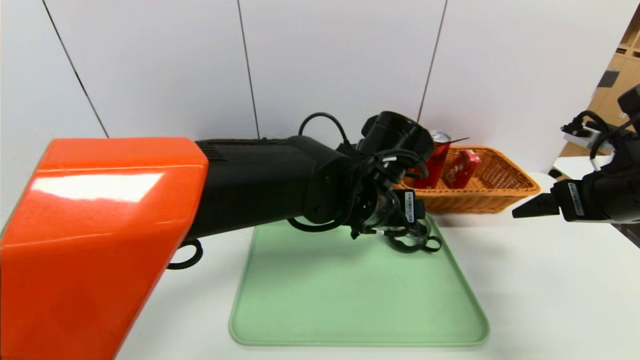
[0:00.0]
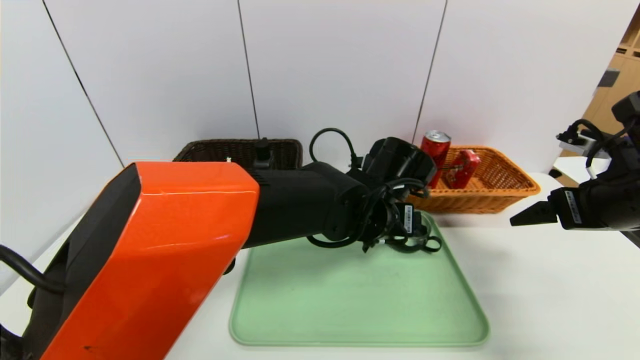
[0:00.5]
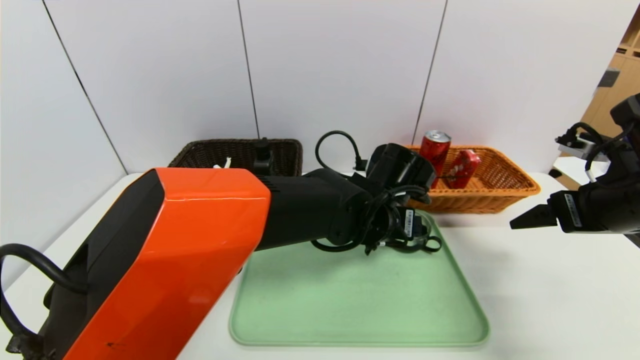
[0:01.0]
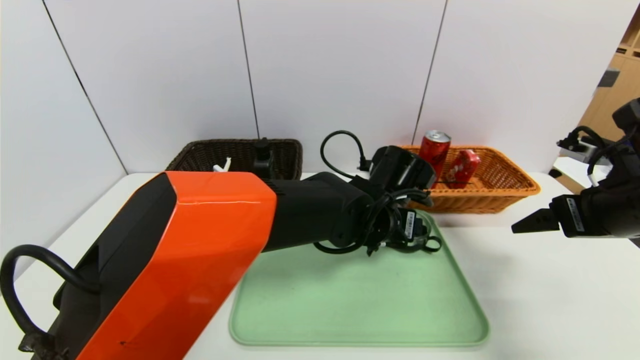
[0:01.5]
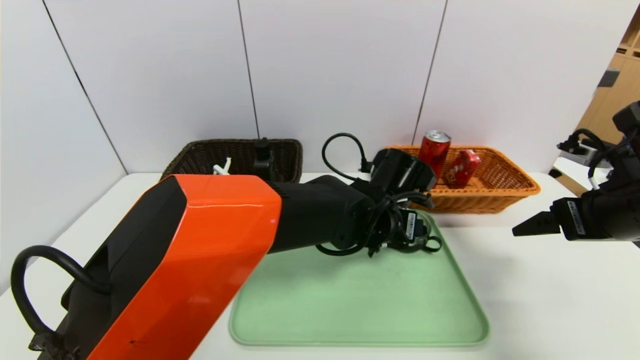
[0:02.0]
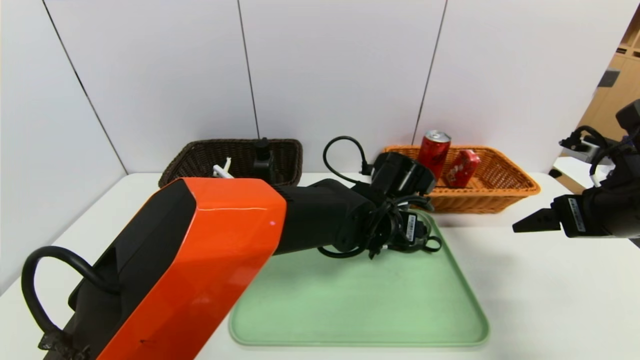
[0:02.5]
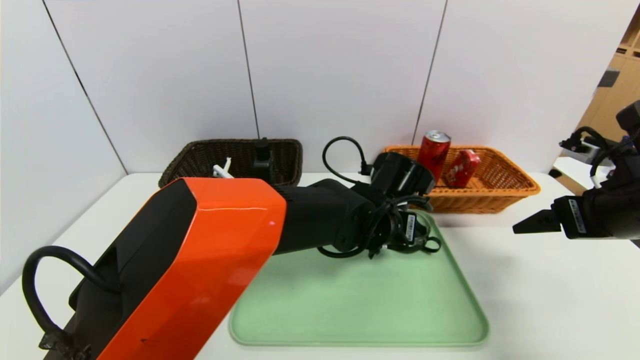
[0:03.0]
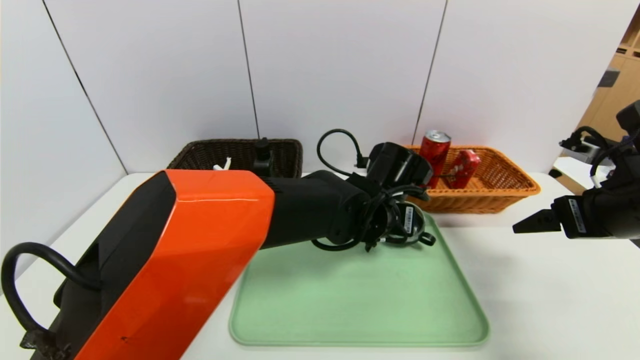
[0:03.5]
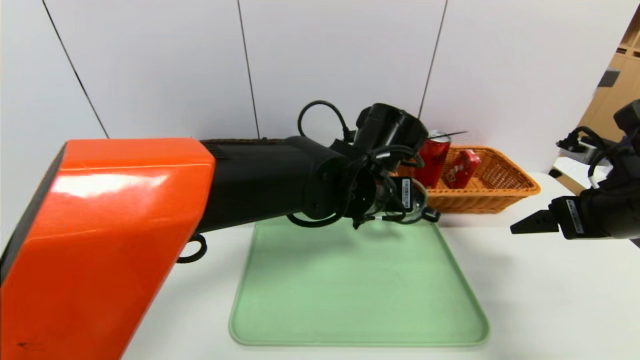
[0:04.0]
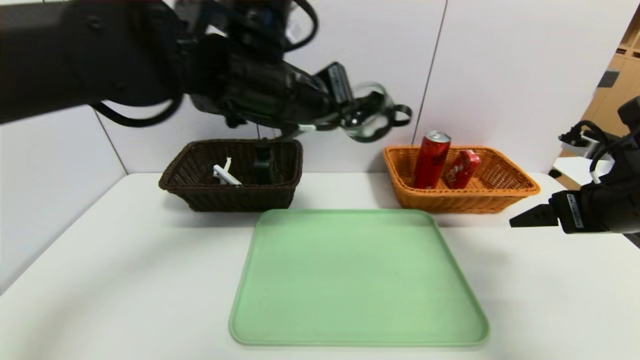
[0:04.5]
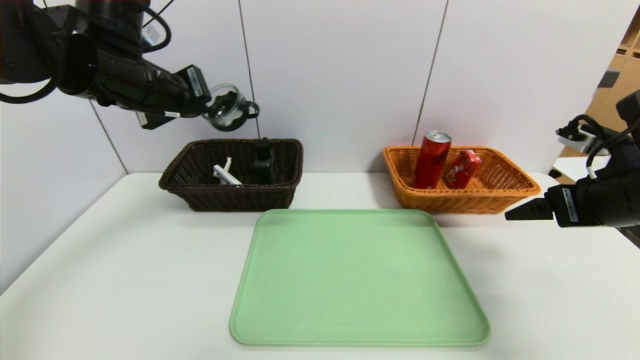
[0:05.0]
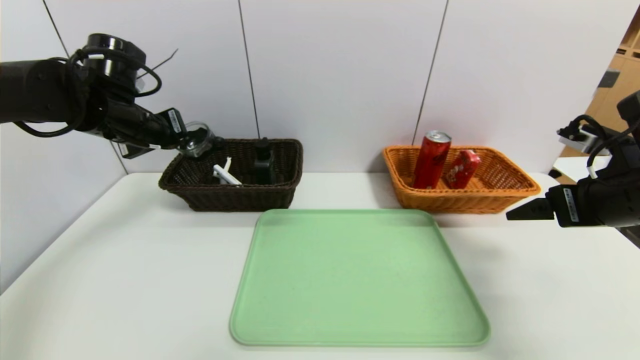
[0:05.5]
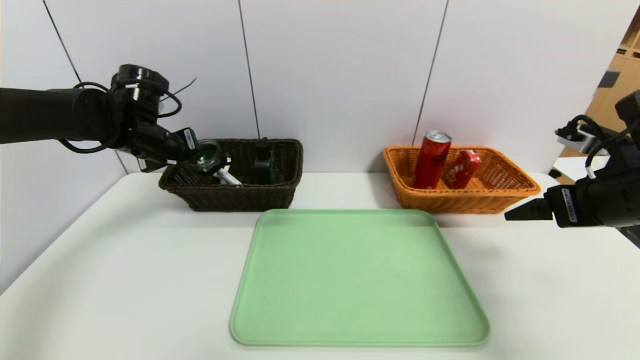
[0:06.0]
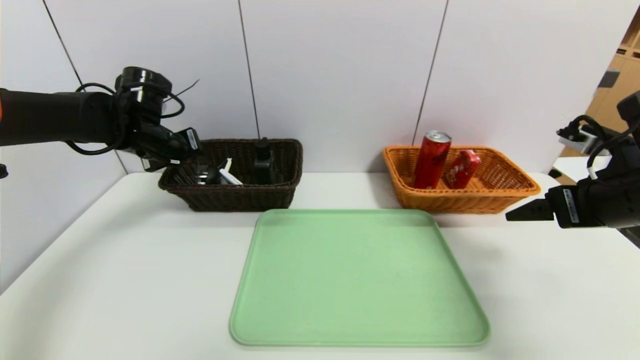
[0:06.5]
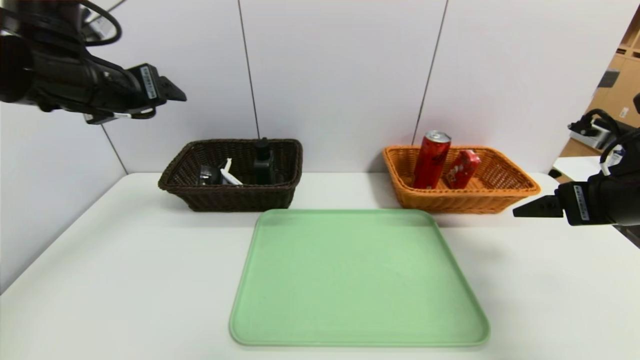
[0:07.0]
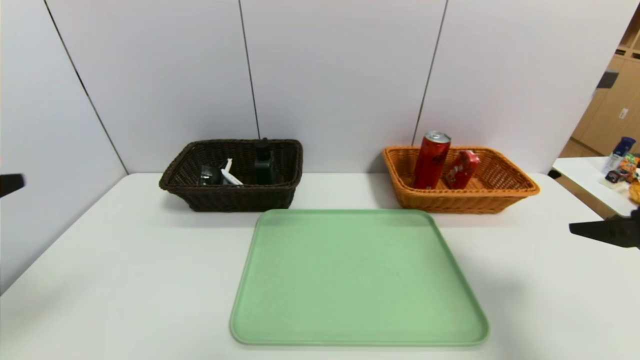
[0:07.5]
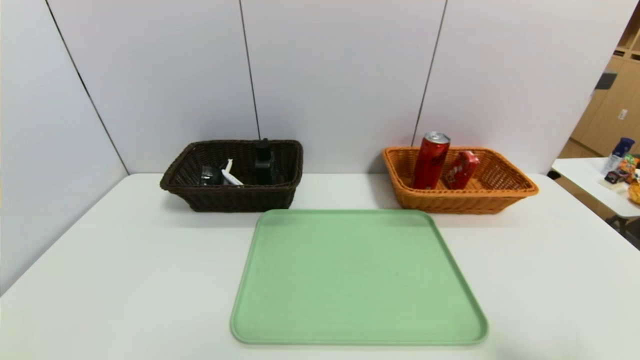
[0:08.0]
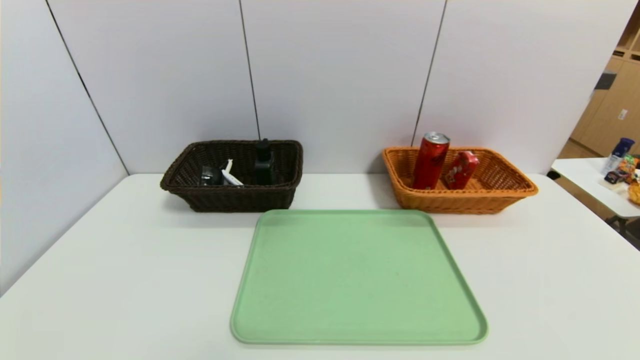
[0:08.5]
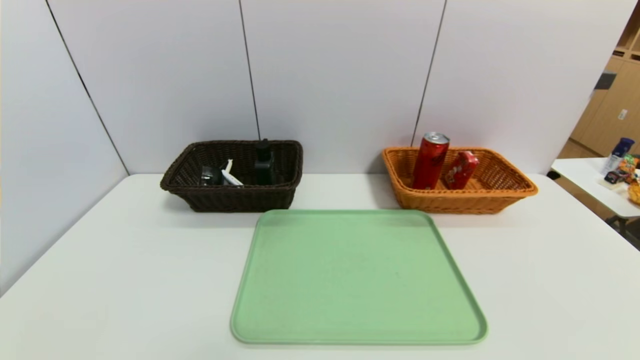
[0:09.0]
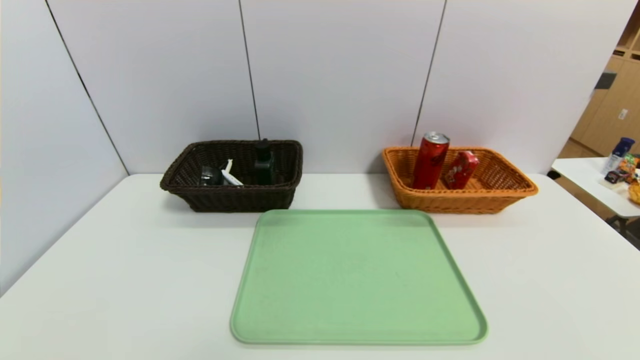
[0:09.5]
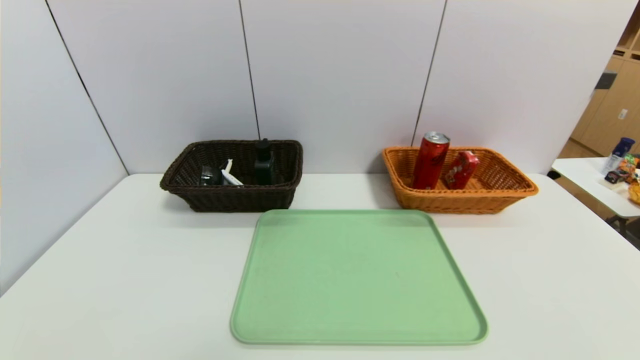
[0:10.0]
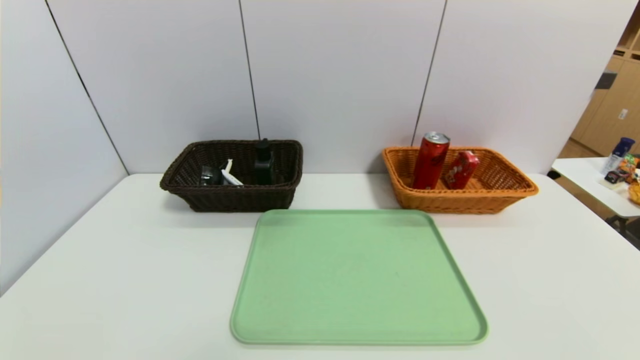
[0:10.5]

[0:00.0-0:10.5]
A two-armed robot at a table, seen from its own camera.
Task of the whole recording: place the food in the right basket with the right gripper, and place the non food items in the left basket with the left gripper.
Step, 0:00.0 to 0:06.0: Grasp the black glass cup and put it in the left basket.
0:00.0 to 0:02.0: The left gripper travels downward by approximately 5 cm.
0:02.0 to 0:04.0: The left gripper heads upward, covering approximately 5 cm, and closes.
0:04.0 to 0:06.5: The left gripper travels to the left by approximately 35 cm, and opens up.
0:06.5 to 0:08.5: The left gripper travels backward by approximately 50 cm, and opens its fingers; the right gripper moves backward, some 30 cm.

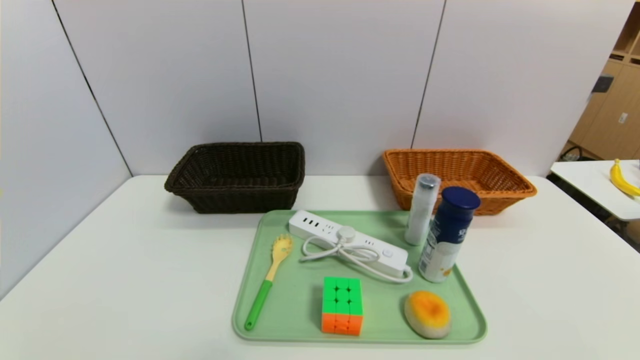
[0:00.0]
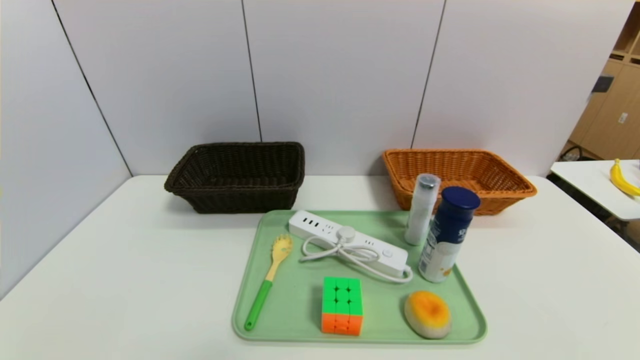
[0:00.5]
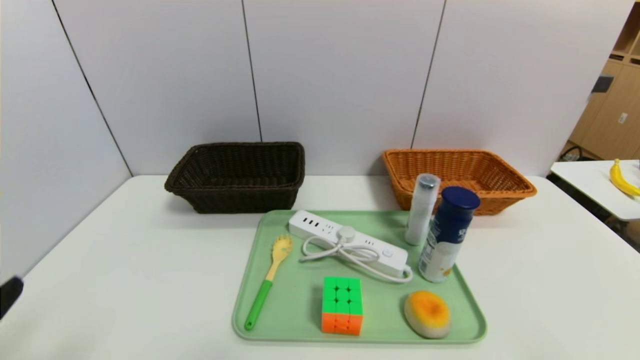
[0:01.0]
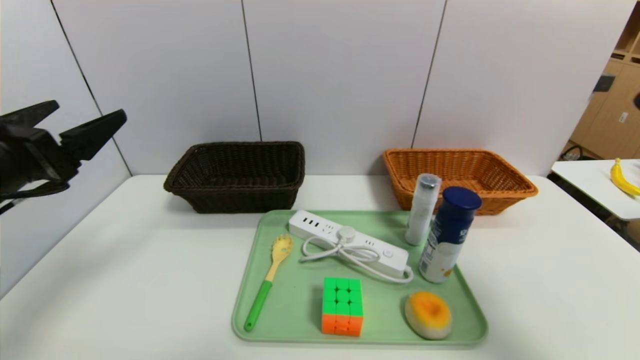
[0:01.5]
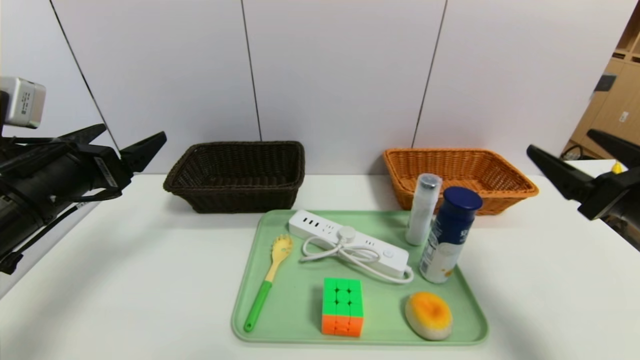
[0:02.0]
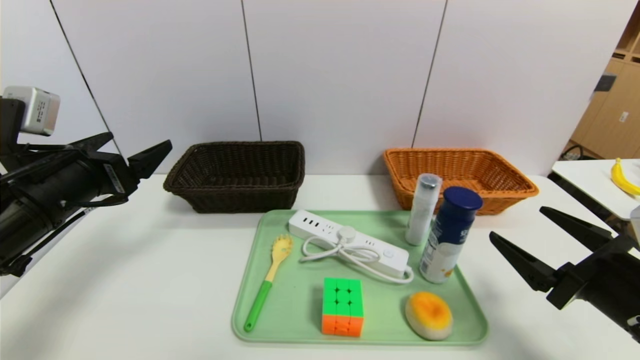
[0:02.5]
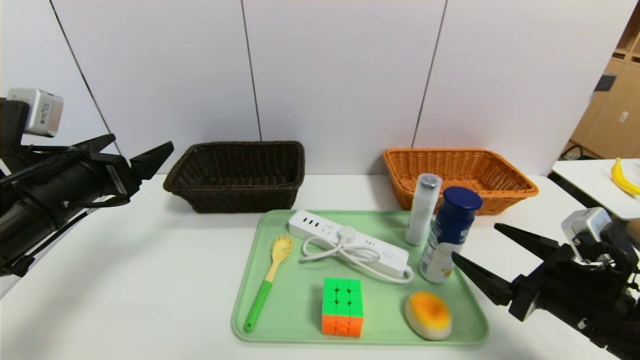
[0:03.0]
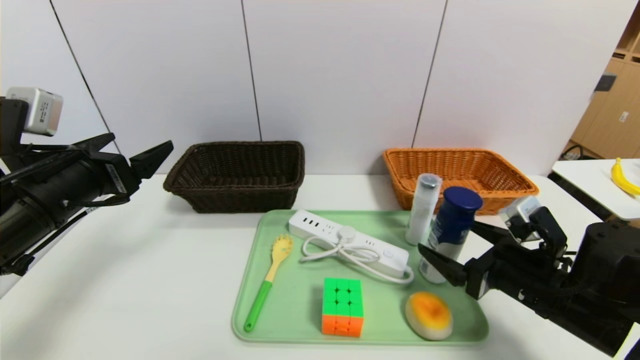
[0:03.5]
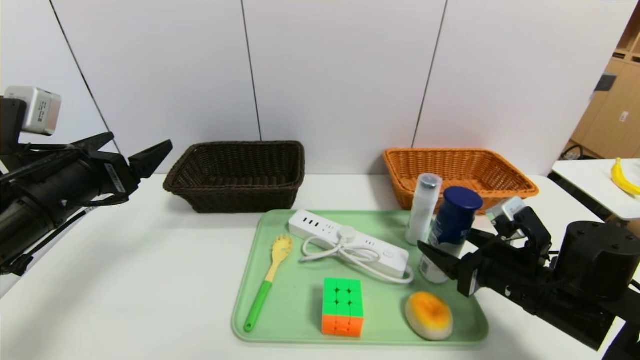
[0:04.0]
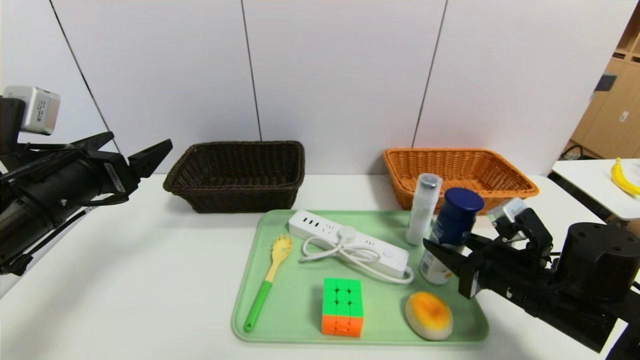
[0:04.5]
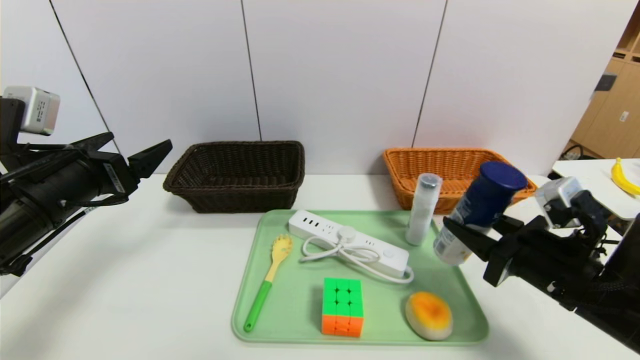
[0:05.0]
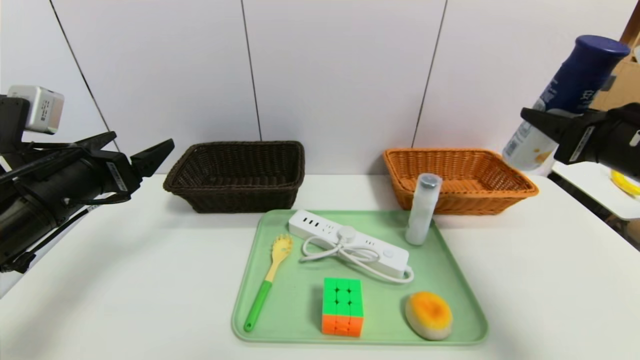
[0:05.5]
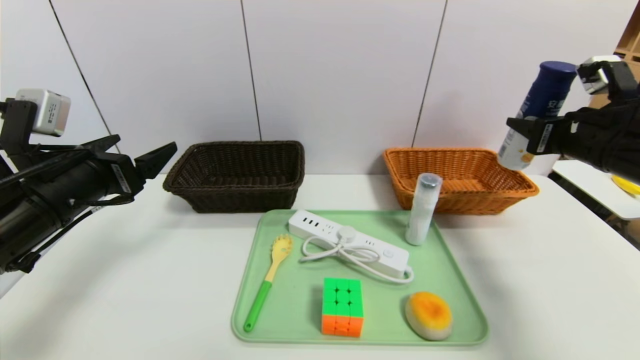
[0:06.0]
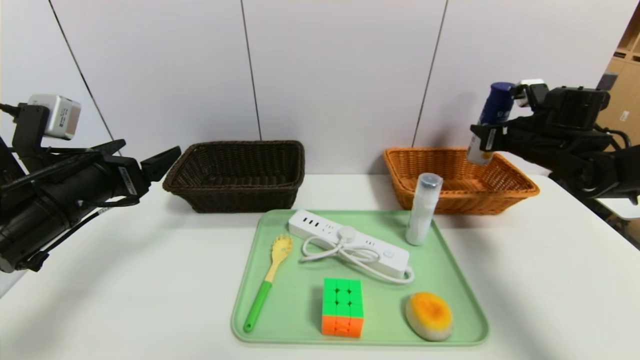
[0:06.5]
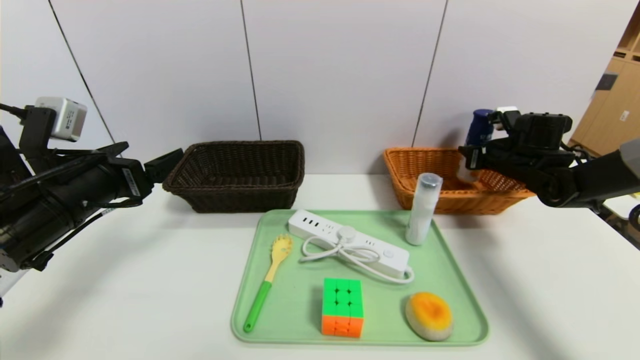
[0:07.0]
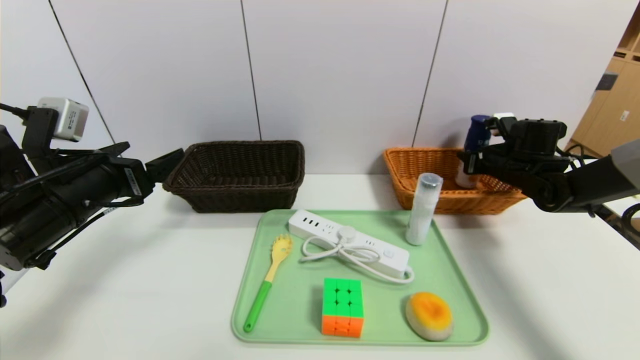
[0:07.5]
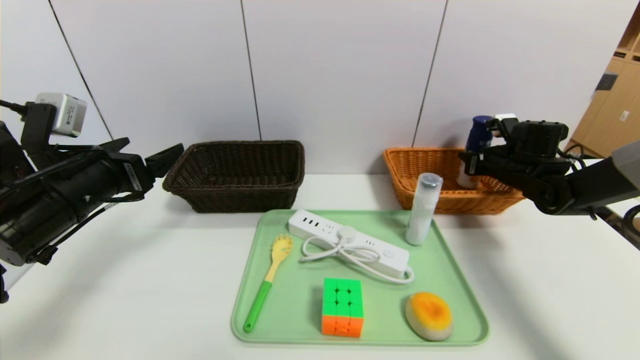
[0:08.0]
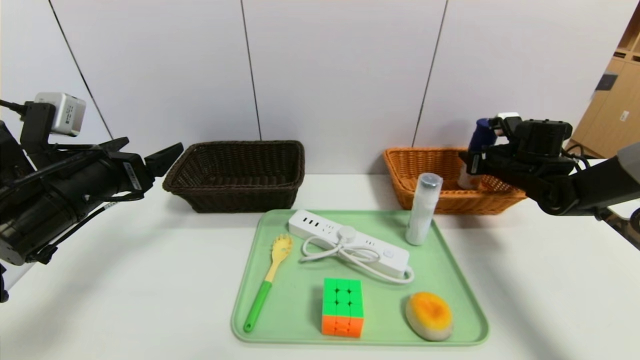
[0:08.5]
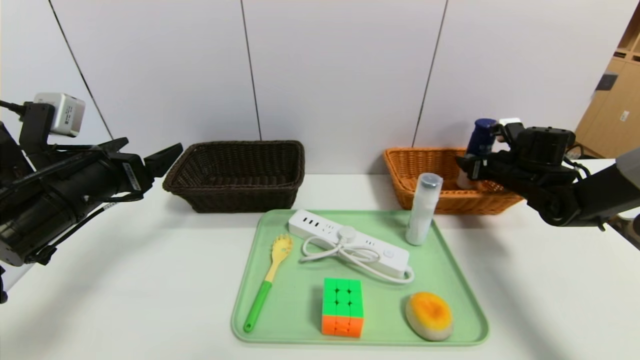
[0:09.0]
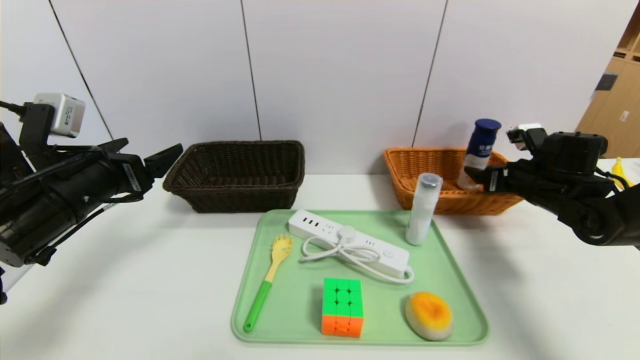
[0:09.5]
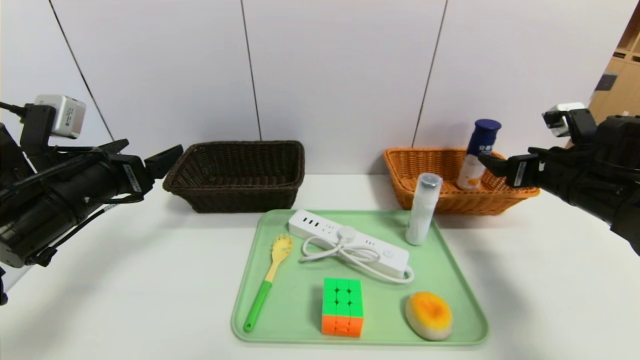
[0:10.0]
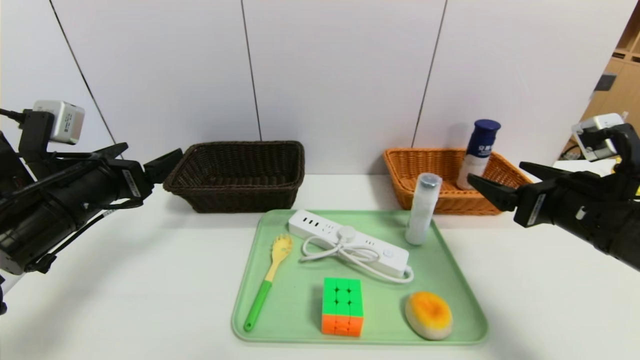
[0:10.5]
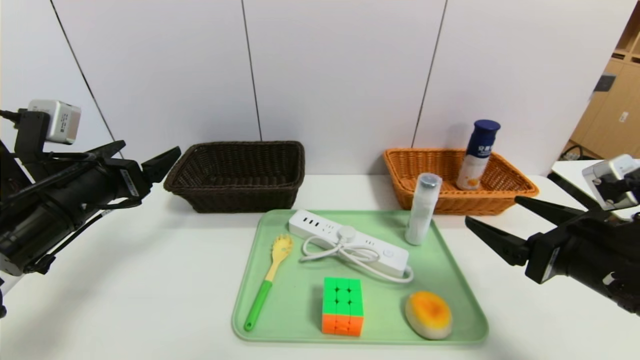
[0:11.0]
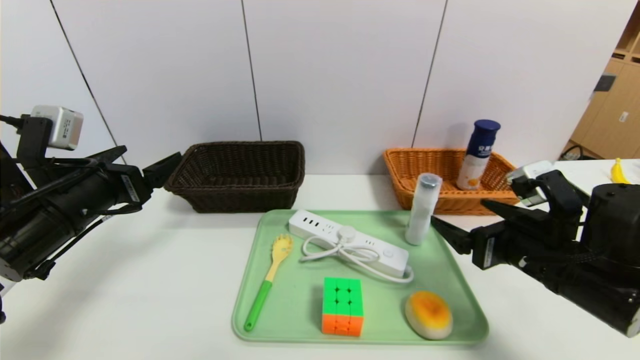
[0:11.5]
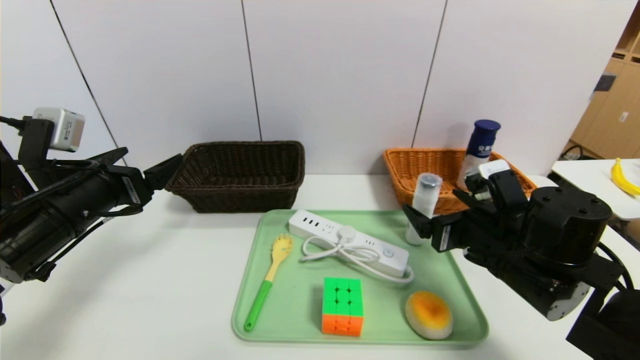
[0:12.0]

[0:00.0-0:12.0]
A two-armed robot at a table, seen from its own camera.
Task of the whole recording: place the food in the right basket with the right gripper, and place the non food items in the left basket with the left gripper.
Step, 0:00.0 to 0:09.5: Grasp the yogurt and put it in the right basket.
0:00.0 to 0:02.0: The grippers both shift forward and upward by roughly 25 cm.
0:02.0 to 0:04.0: The right gripper is displaced downward and to the left by some 10 cm.
0:04.0 to 0:06.0: The right gripper travels upward, to the right and forward by roughly 20 cm.
0:06.0 to 0:08.0: The right gripper goes about 15 cm forward and downward.
0:08.0 to 0:10.0: The right gripper moves backward, roughly 15 cm, and opens.
0:10.0 to 0:12.0: The right gripper goes approximately 15 cm to the left, backward and downward.
